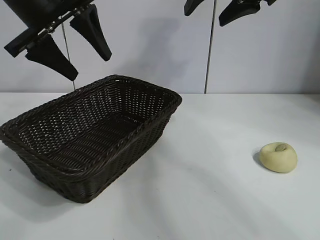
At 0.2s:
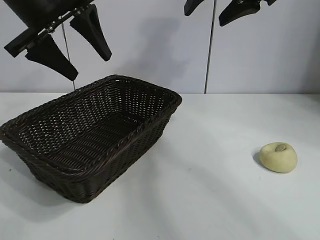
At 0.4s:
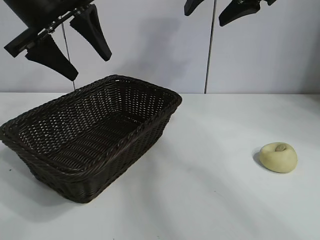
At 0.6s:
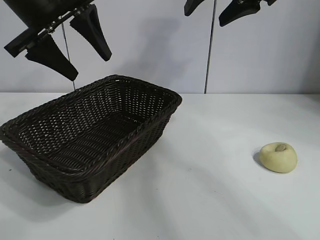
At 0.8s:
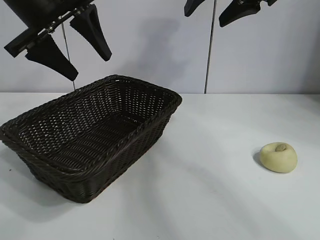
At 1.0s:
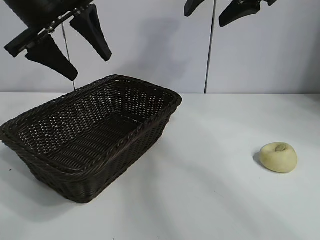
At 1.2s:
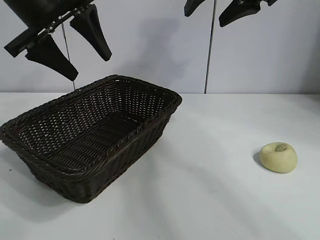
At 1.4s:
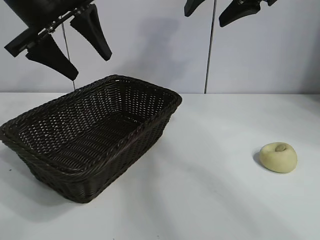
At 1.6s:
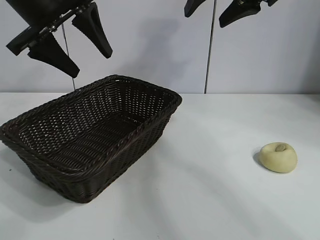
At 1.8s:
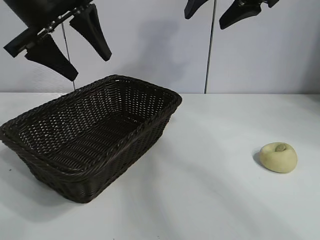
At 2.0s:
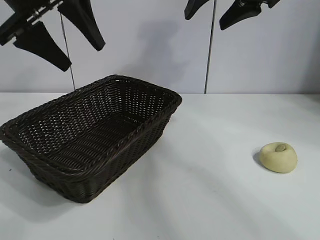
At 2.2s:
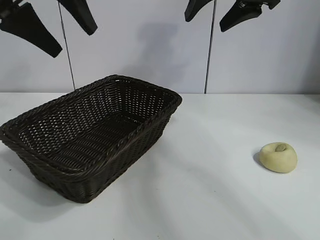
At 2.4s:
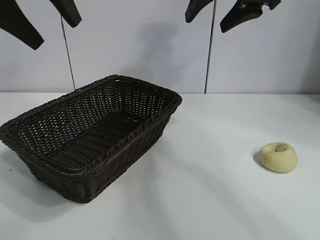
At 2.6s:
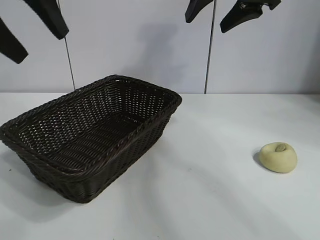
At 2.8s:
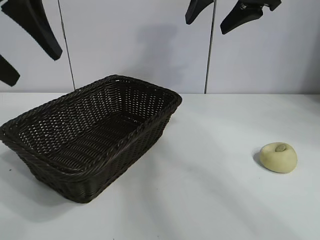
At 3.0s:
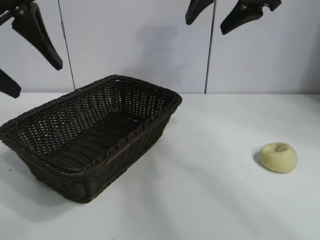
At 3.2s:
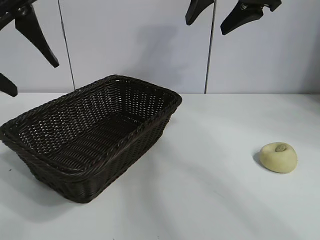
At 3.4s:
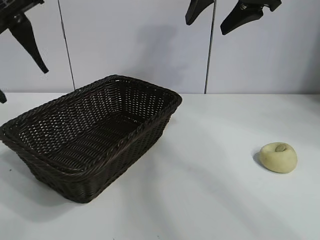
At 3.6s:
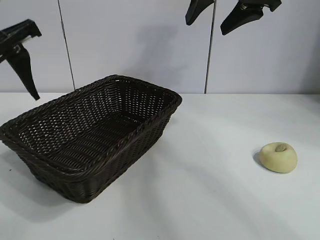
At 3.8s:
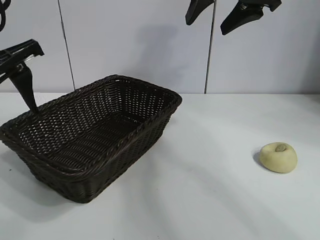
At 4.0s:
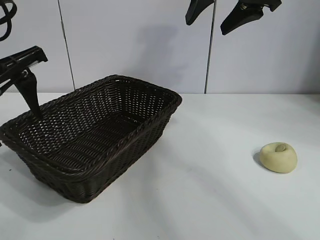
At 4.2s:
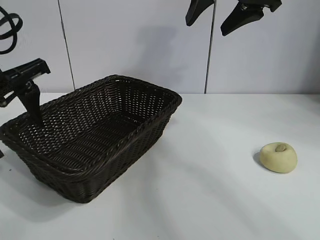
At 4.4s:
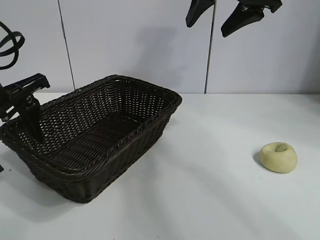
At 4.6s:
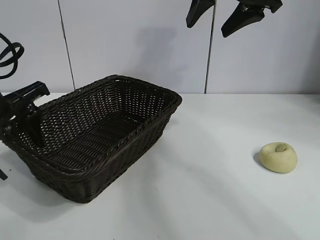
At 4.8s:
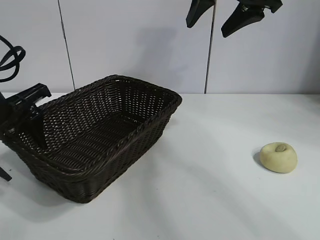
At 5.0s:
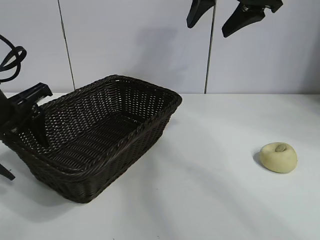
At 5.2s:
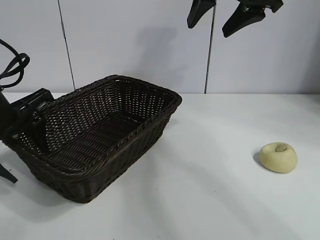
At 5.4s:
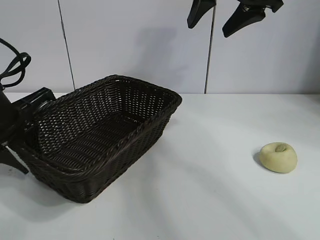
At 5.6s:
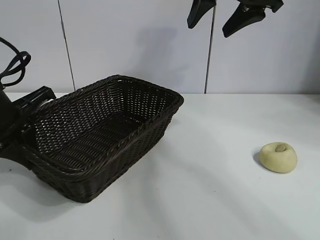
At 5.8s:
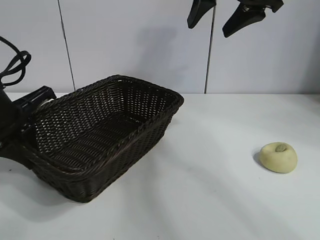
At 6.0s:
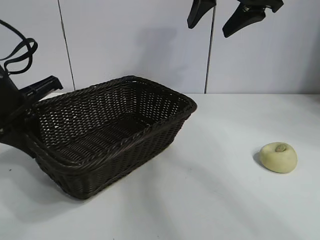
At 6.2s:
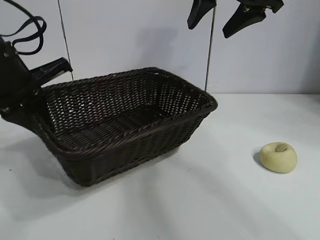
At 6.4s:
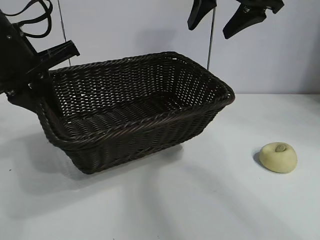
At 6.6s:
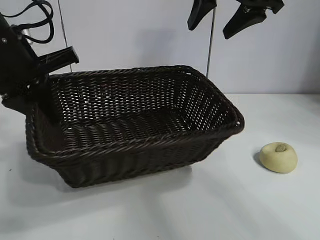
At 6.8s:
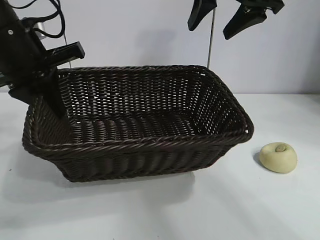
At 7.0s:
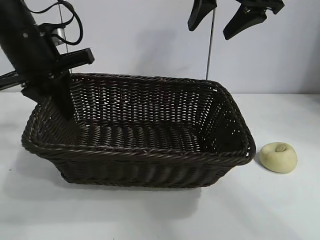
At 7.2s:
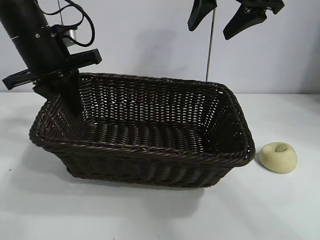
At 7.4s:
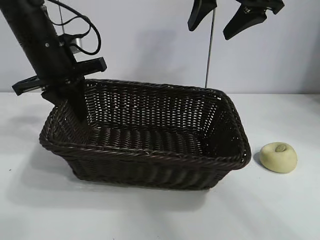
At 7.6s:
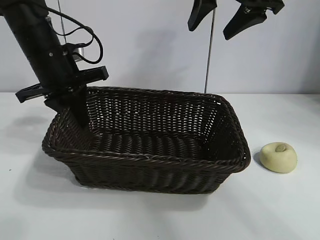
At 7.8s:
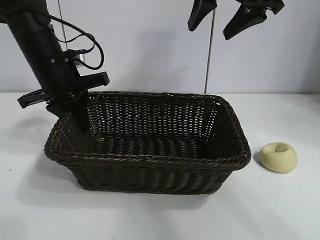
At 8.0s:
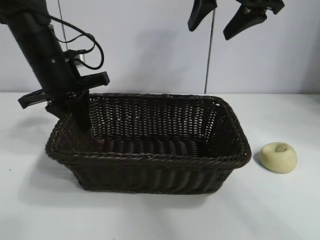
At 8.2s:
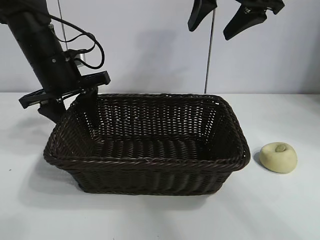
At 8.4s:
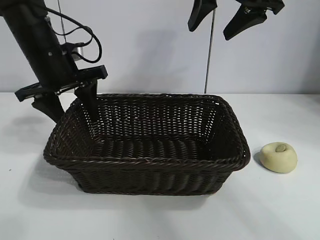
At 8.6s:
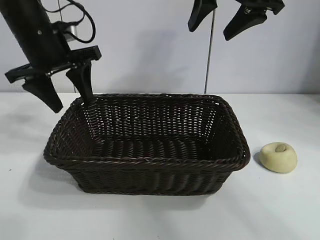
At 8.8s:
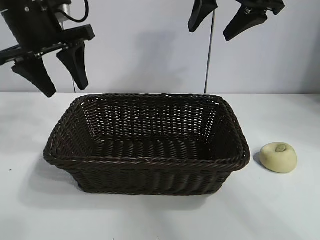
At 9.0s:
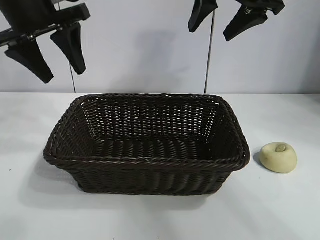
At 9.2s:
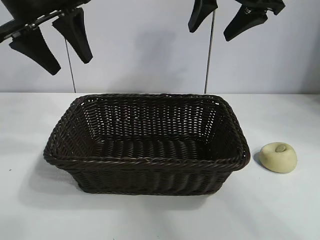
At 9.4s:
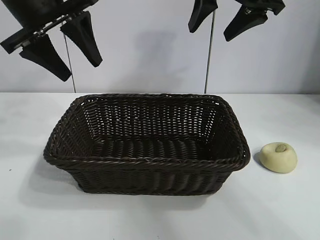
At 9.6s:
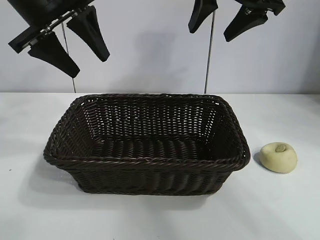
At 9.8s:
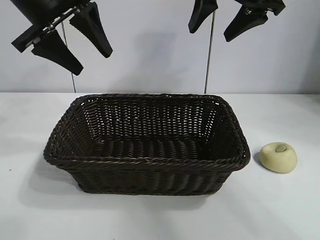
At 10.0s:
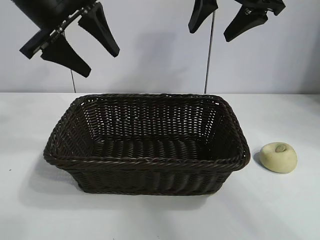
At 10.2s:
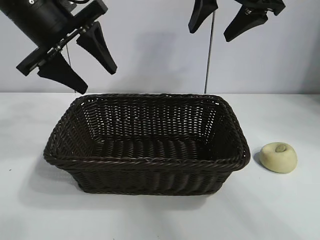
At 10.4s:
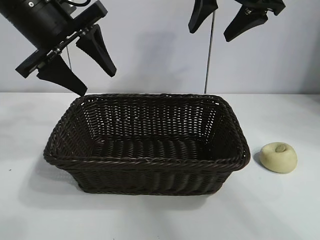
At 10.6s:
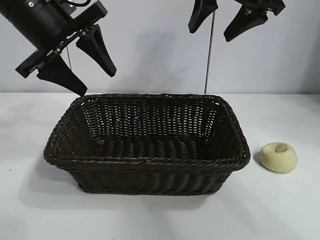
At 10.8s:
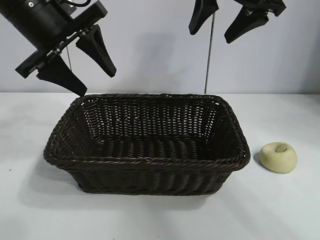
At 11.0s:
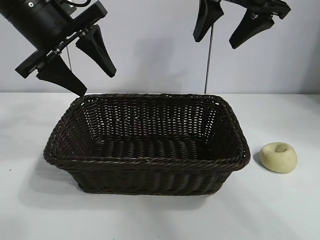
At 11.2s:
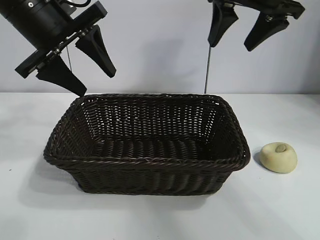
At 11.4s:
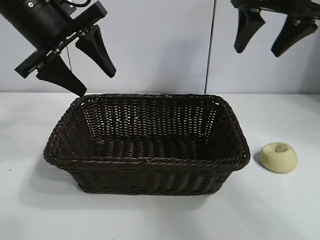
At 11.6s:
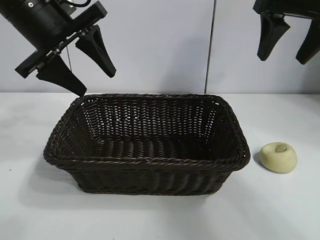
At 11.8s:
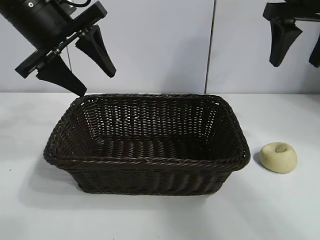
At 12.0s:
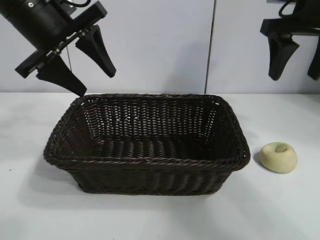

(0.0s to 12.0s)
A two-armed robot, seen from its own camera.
Task of the whole recording: pick up the egg yolk pastry and put it into the basket.
Step, 1.4s - 5.4s: Grasp the basket with left gripper.
Step, 5.8s - 8.2s: Place the basket in the center of view with left gripper.

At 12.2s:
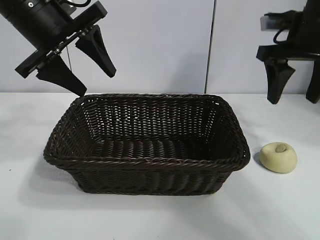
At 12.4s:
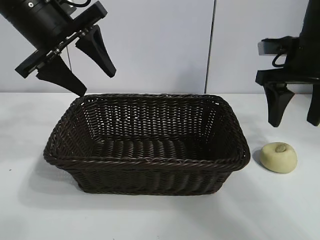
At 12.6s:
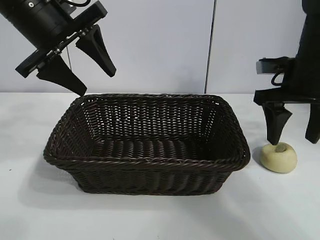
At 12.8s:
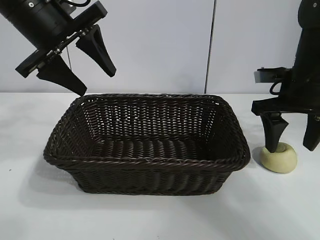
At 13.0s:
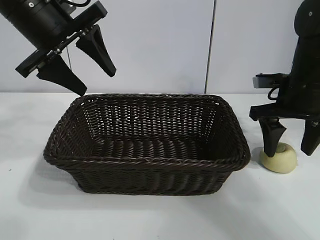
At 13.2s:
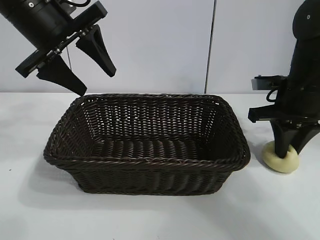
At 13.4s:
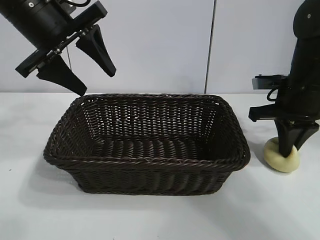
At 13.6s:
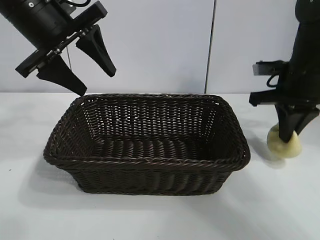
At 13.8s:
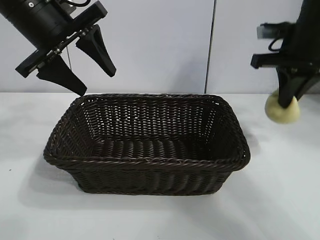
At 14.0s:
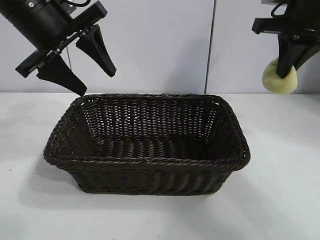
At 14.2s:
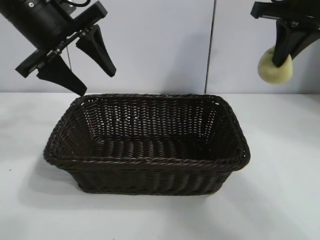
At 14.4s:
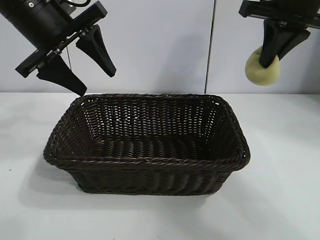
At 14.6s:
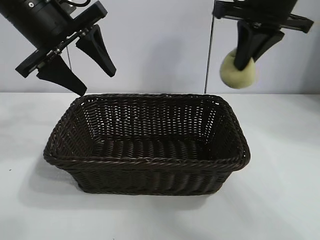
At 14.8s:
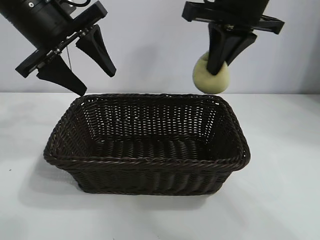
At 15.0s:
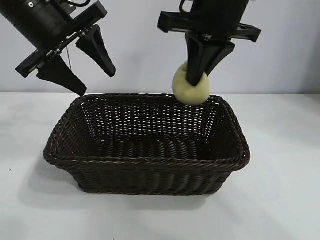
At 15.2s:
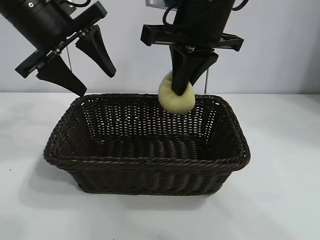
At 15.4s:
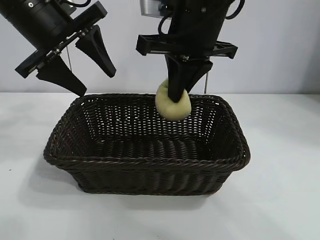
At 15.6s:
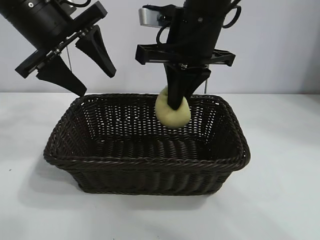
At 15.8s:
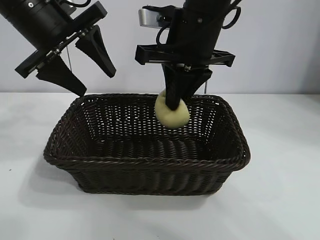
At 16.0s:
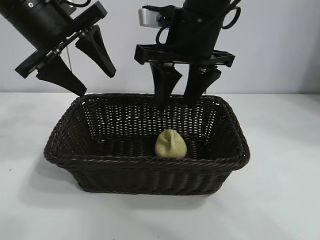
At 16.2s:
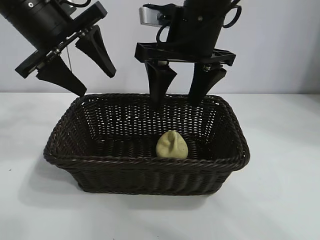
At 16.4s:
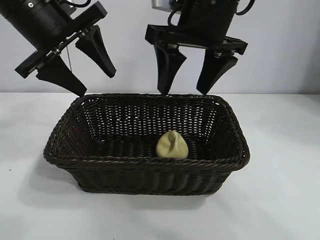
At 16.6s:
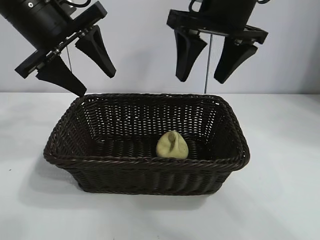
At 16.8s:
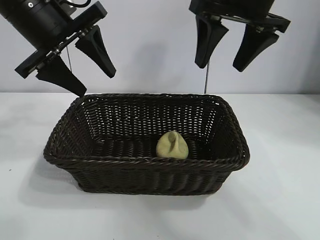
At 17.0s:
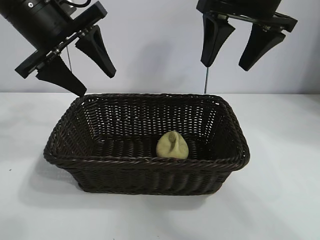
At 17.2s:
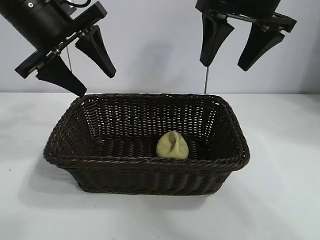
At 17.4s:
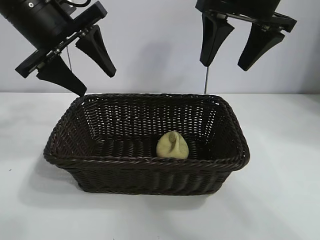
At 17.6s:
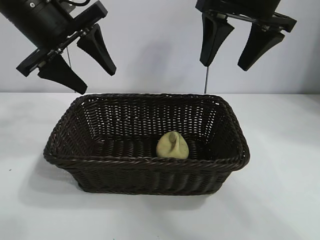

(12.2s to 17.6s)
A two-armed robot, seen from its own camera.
Task of the whole recording: pick up the egg yolk pastry and put it into the basket.
Step, 13.6s - 16.0s: Place the egg yolk pastry in the basket with right gripper.

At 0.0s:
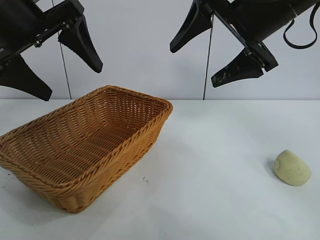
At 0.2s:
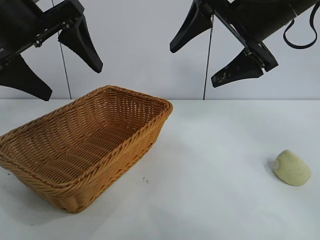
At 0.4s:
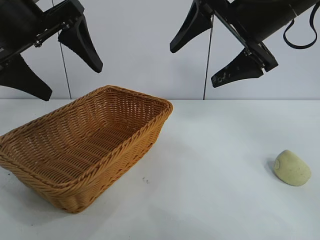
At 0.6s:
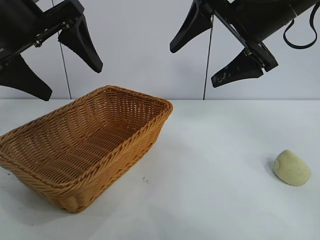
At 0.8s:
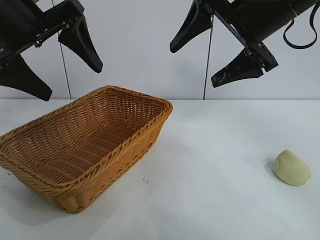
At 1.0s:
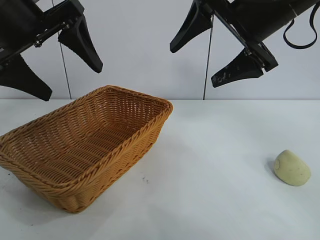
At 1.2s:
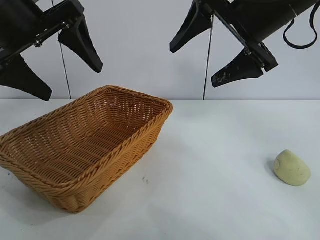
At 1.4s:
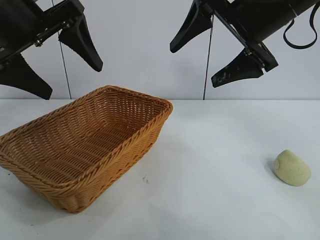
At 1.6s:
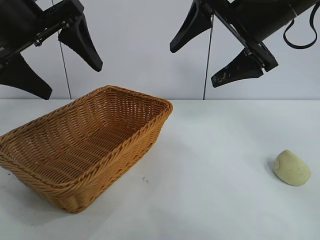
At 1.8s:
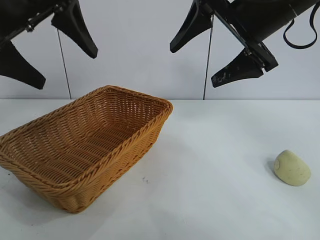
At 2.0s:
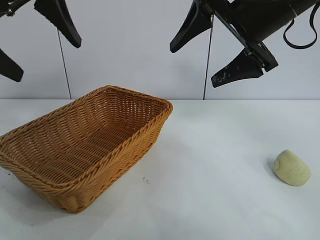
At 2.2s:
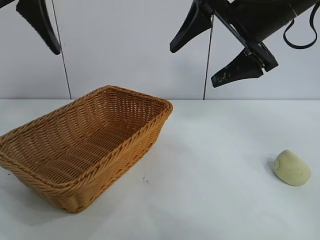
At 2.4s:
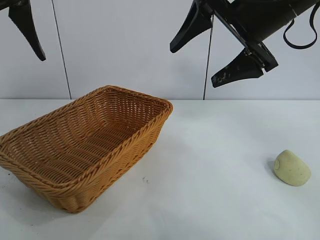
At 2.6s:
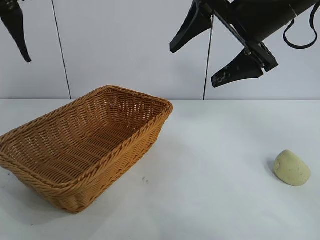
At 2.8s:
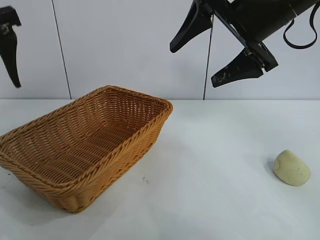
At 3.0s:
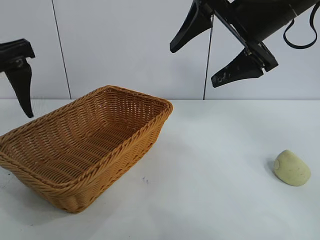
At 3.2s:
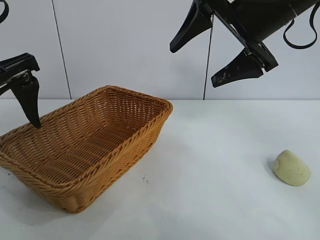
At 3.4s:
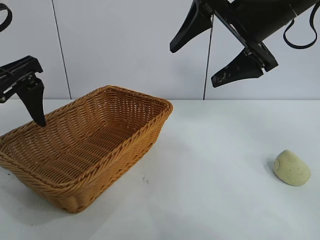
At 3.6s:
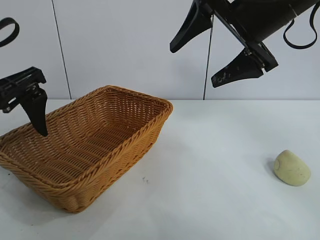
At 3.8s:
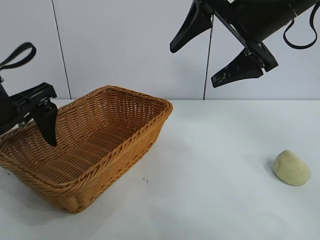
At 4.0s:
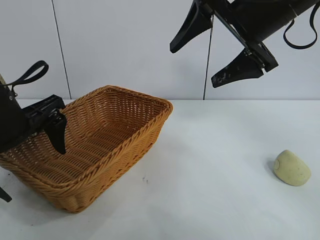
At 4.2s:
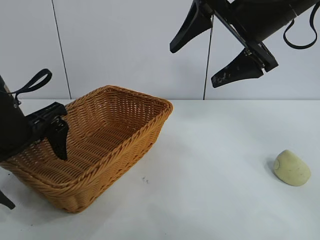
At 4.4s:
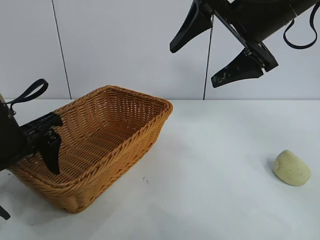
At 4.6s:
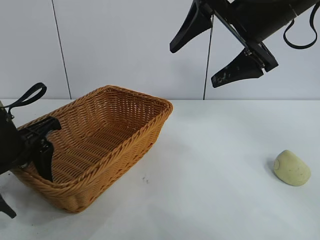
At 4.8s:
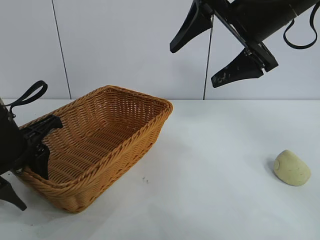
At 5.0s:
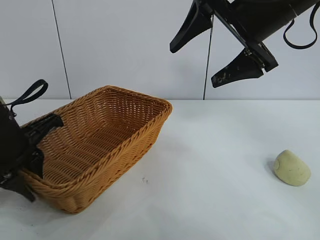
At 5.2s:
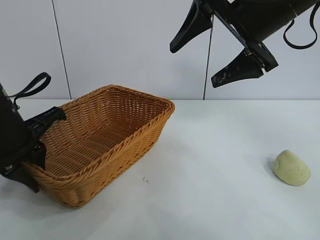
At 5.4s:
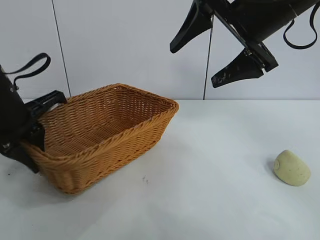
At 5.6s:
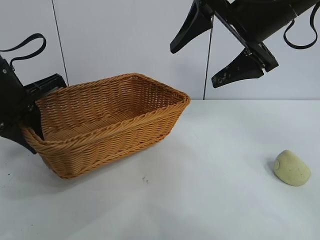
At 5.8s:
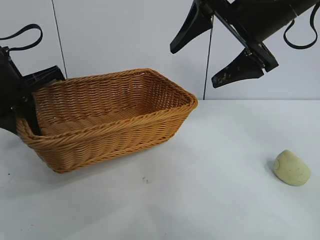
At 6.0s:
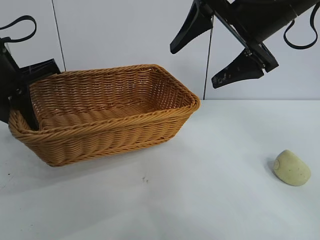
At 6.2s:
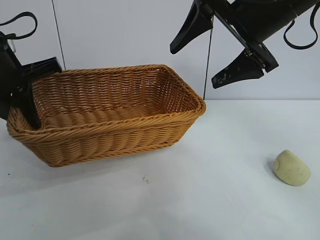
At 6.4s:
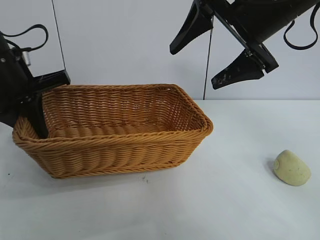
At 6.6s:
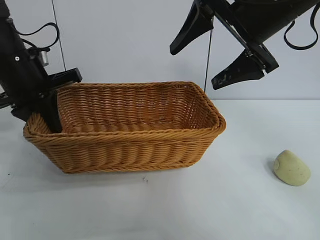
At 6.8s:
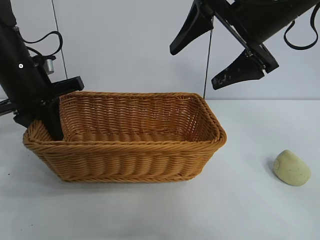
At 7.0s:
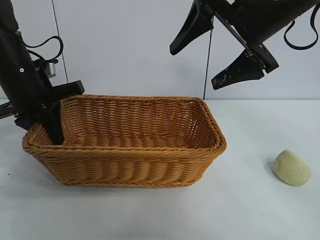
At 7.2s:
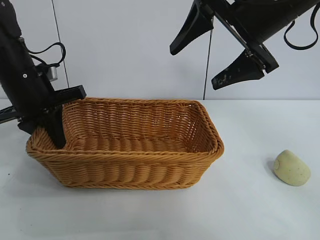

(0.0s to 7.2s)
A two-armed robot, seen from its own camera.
Task of the whole recording: pick up the egg yolk pastry and put it into the basket.
Step, 1.6s - 5.0s: Grasp the basket with left gripper.
